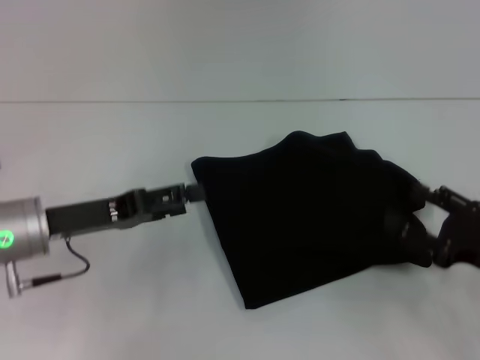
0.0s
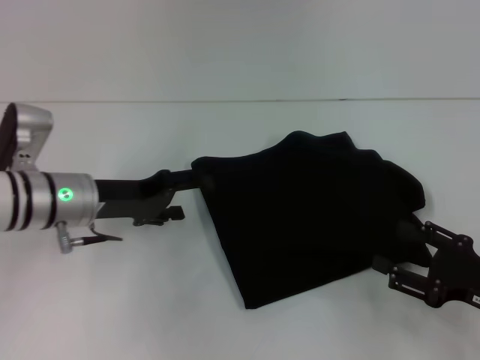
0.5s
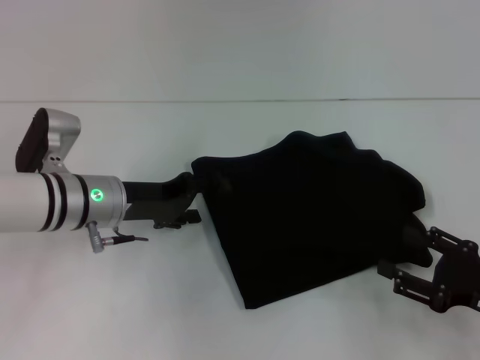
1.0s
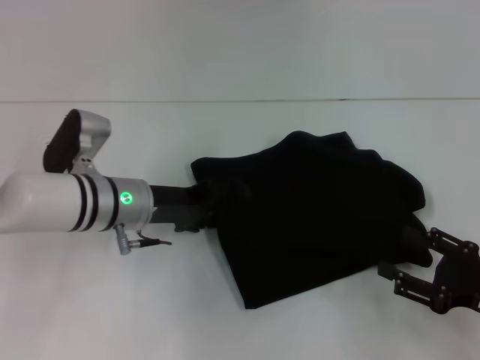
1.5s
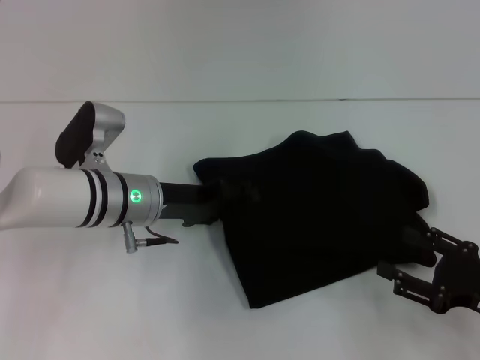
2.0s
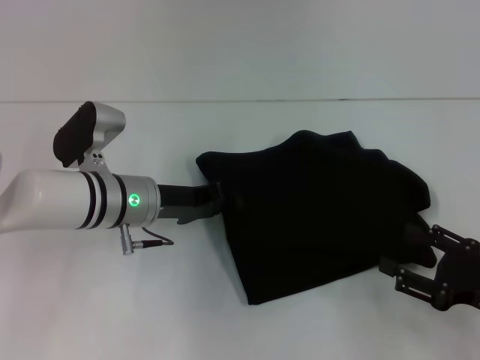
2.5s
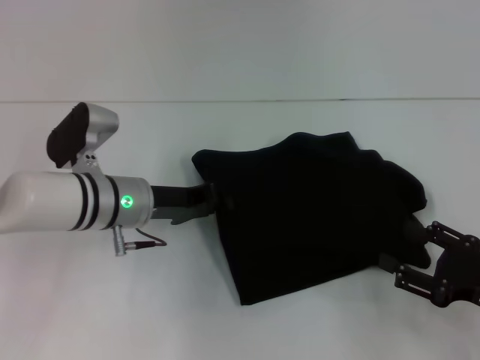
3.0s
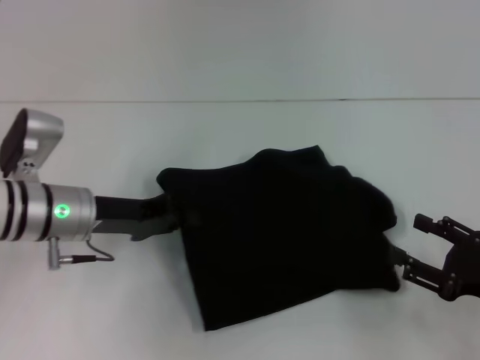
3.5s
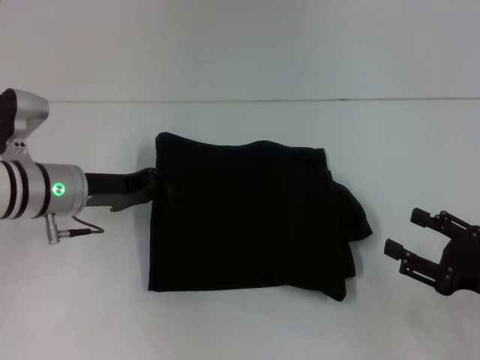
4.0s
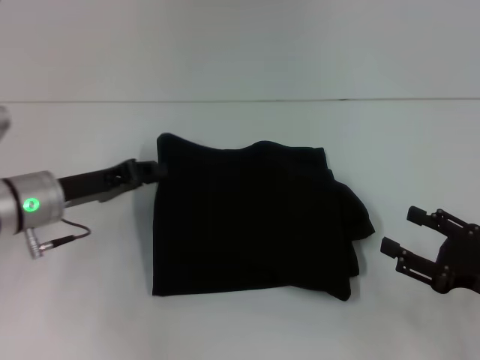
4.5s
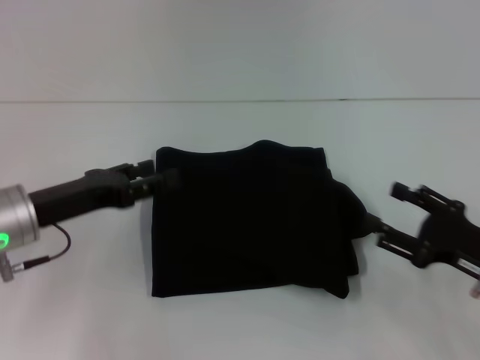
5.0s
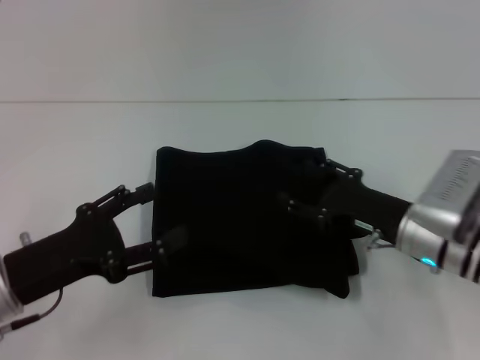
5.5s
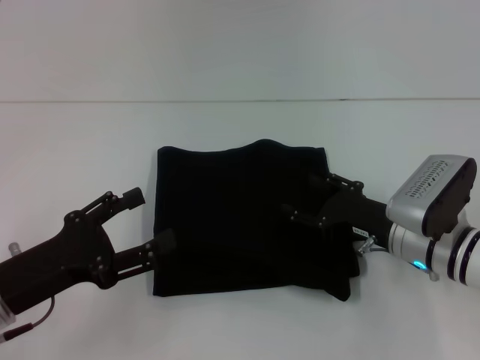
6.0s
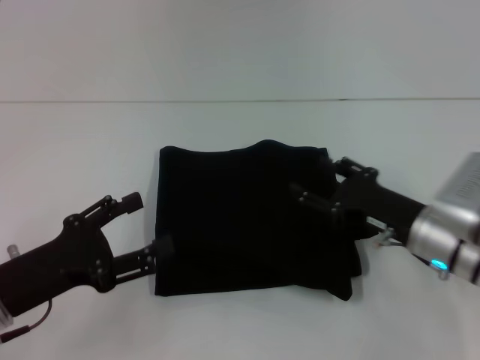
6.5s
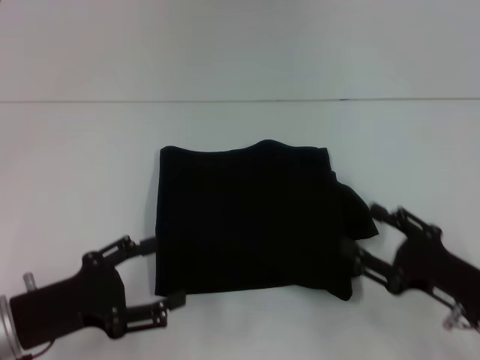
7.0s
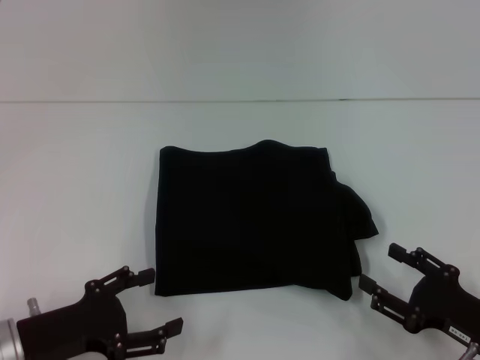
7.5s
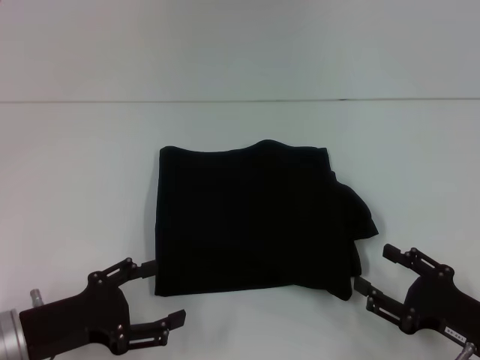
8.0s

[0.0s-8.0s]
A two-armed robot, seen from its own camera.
0.0s to 2.0s: The left gripper shifts roughly 10 cm to the right and forward.
2.0s to 4.0s: The left gripper travels to the left by approximately 10 cm, and closes.
4.0s to 6.0s: The left gripper moves backward, about 15 cm, and opens. Meanwhile the right gripper travels to the left and forward by about 15 cm.
6.0s to 8.0s: The right gripper is displaced backward and to the right by roughly 15 cm.

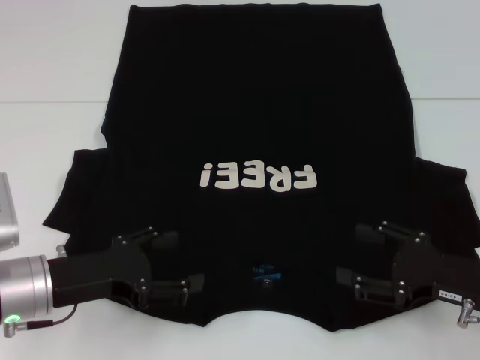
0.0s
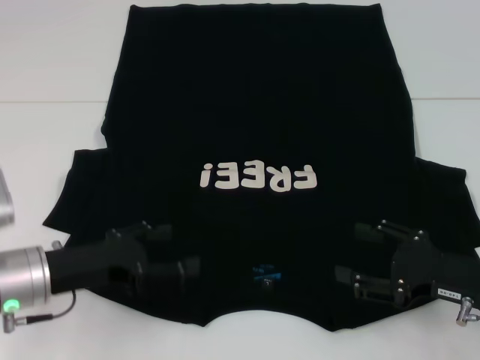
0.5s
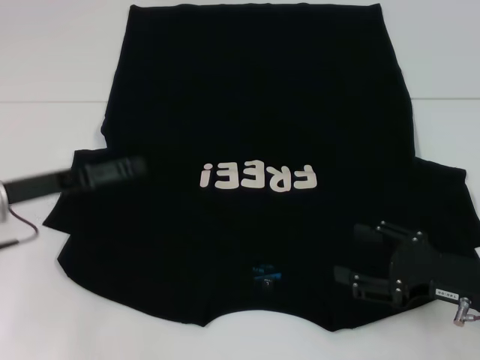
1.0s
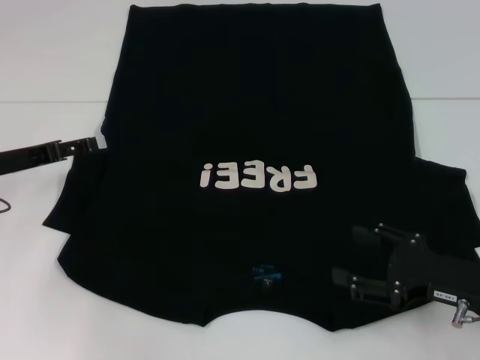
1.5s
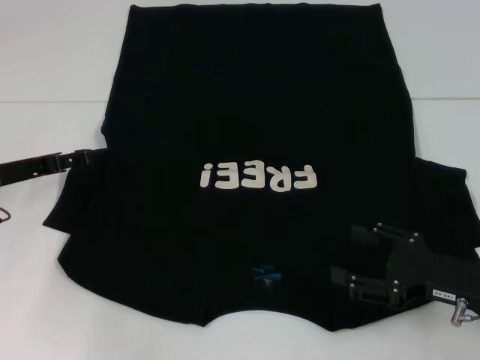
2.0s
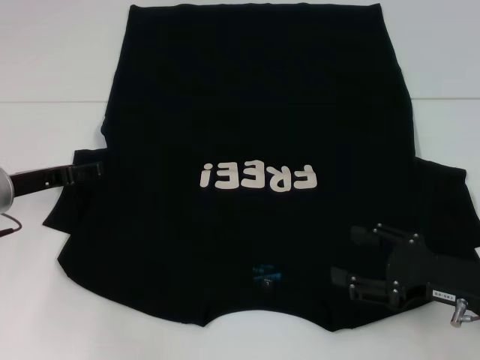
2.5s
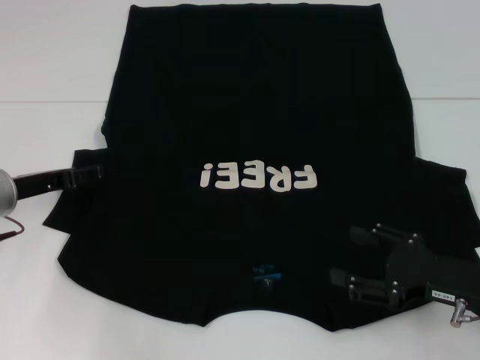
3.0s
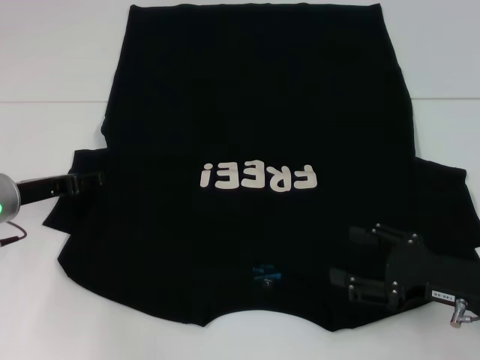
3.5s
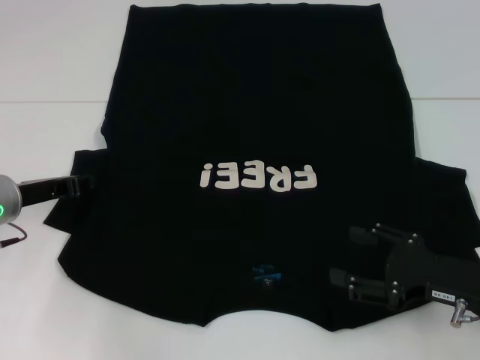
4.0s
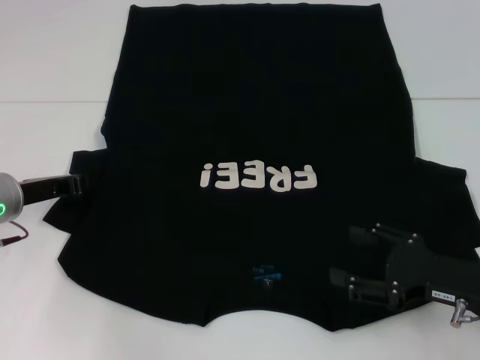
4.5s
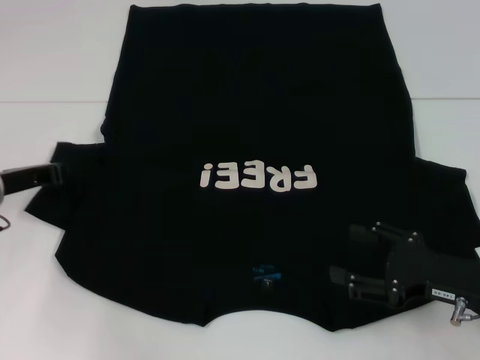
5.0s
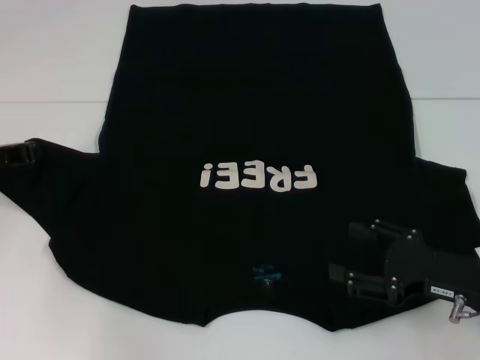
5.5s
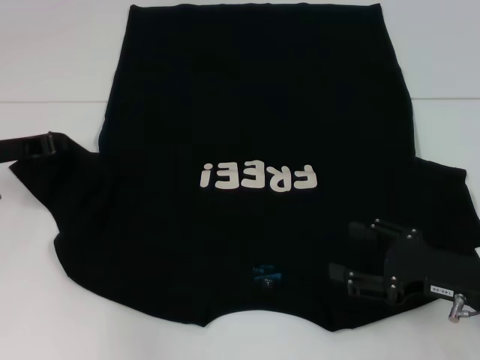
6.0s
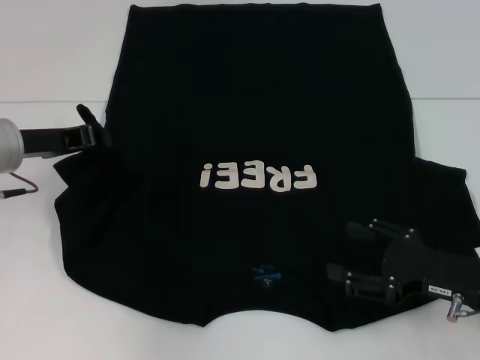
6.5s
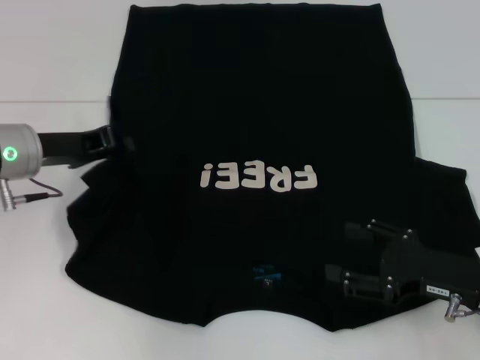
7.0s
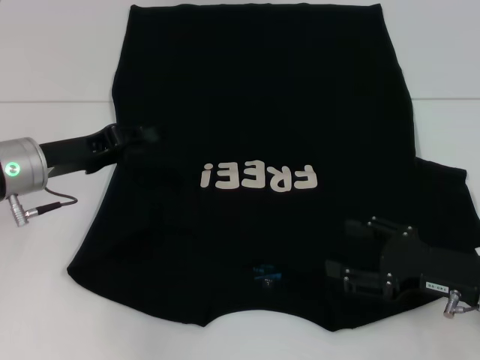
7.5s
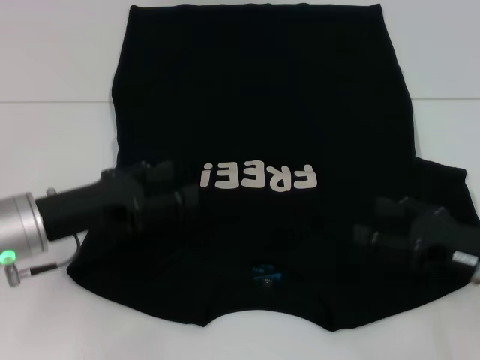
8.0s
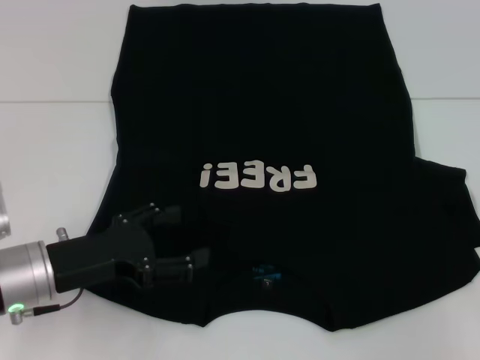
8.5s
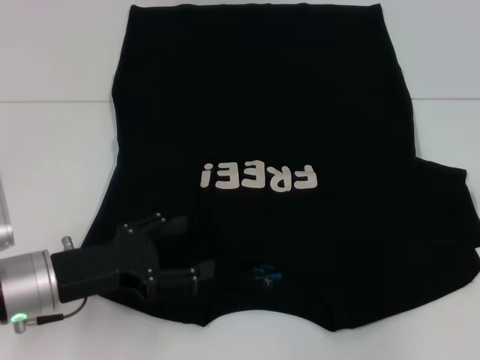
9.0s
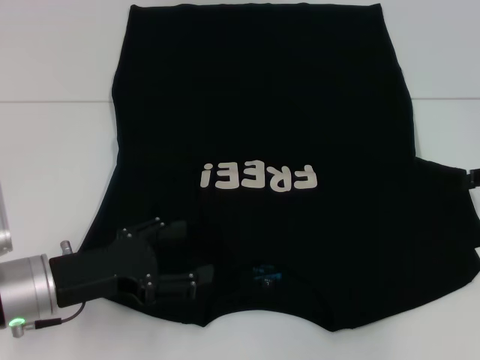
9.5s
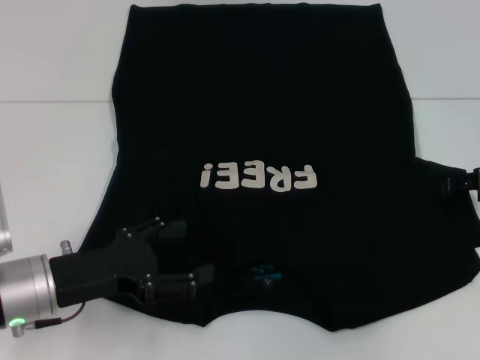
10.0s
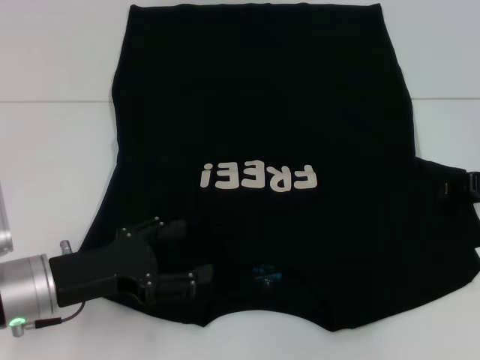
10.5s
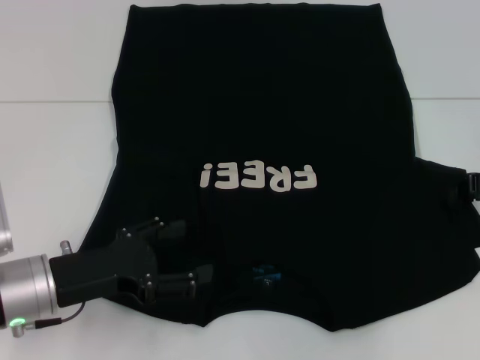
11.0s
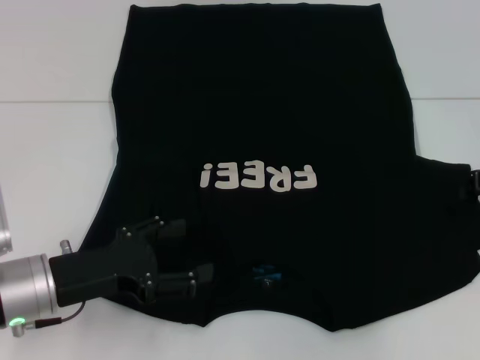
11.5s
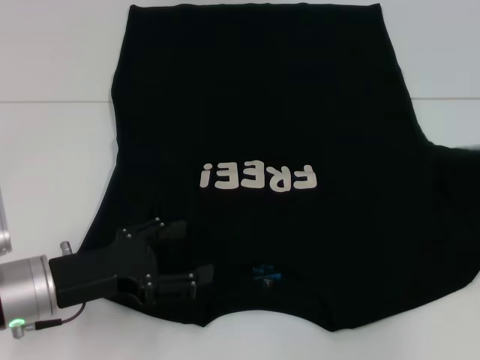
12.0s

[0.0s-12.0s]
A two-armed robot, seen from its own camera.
Step, 0.0s to 7.0s: Fold the bottom left sleeve with your left hand.
0.0s to 2.0s: The left gripper shifts about 10 cm forward and to the left.
2.0s to 4.0s: The left gripper closes.
4.0s to 6.0s: The left gripper goes approximately 5 cm upward, and closes up.
6.0s to 8.0s: The left gripper shifts roughly 10 cm backward and to the right, and opens up.
8.0s to 10.0s: The left gripper opens up. Meanwhile the right gripper moves forward, upward and to the right, roughly 15 cm.
10.0s to 12.0s: The right gripper changes place by about 5 cm, and closes up.

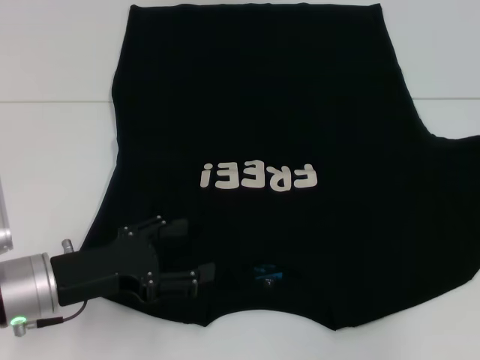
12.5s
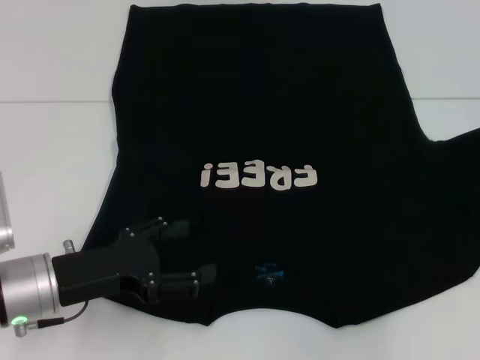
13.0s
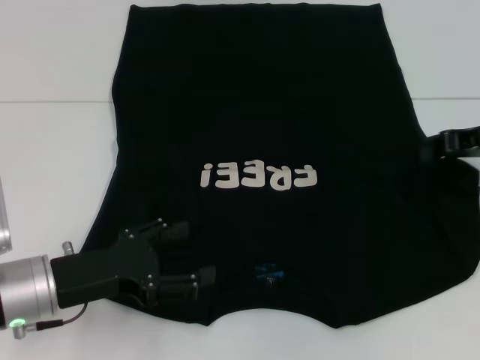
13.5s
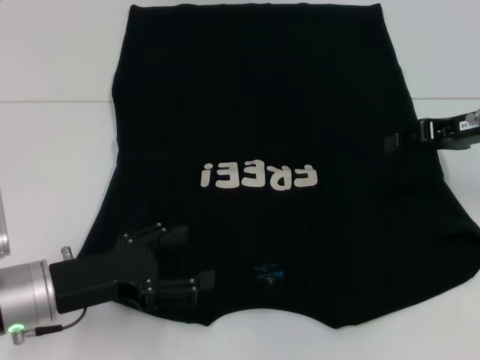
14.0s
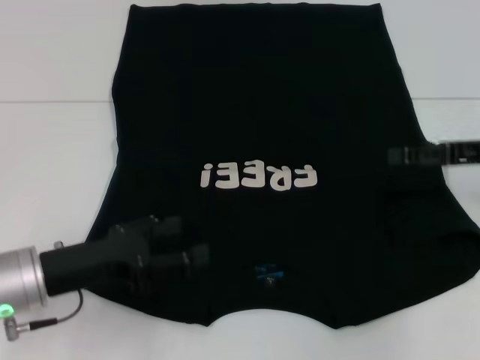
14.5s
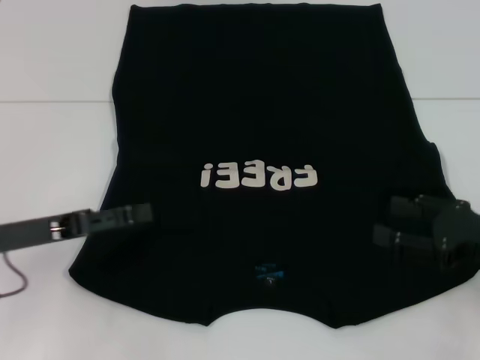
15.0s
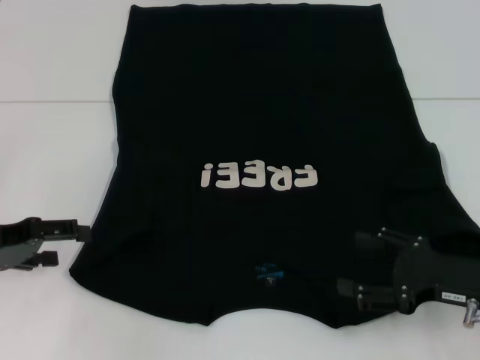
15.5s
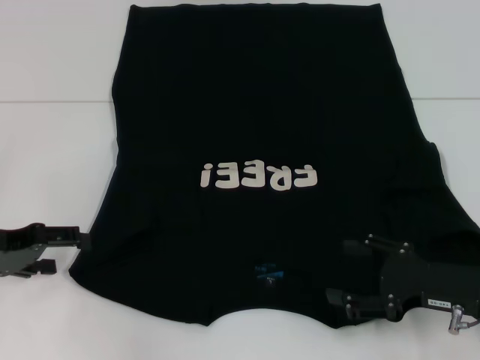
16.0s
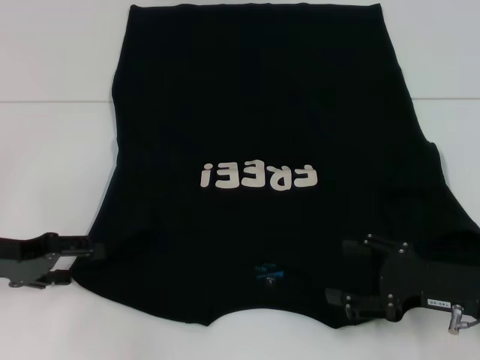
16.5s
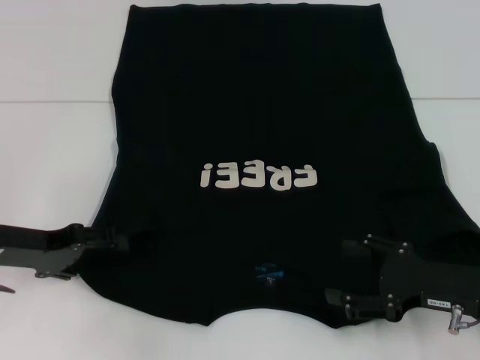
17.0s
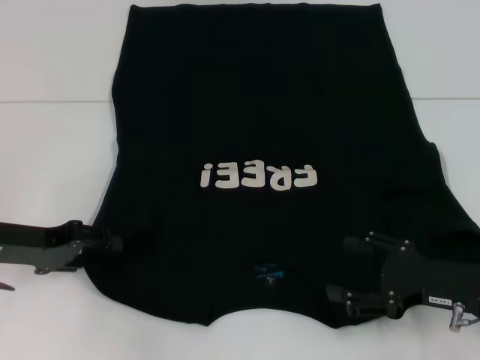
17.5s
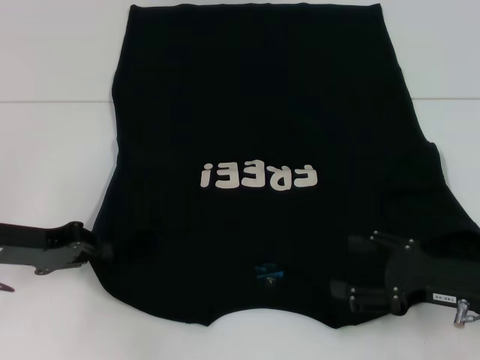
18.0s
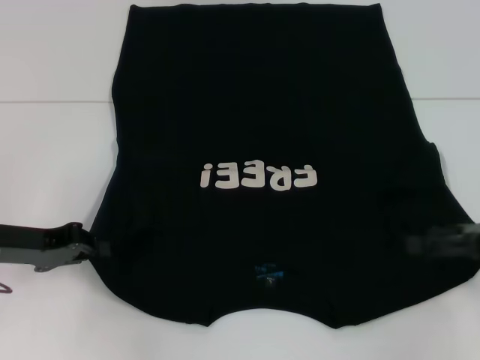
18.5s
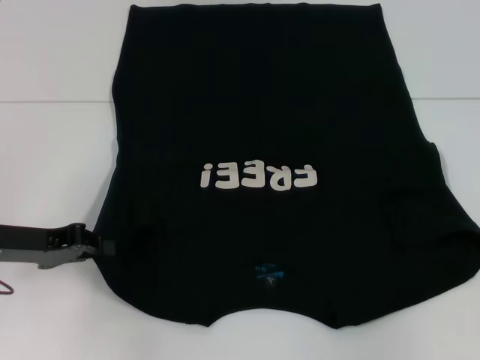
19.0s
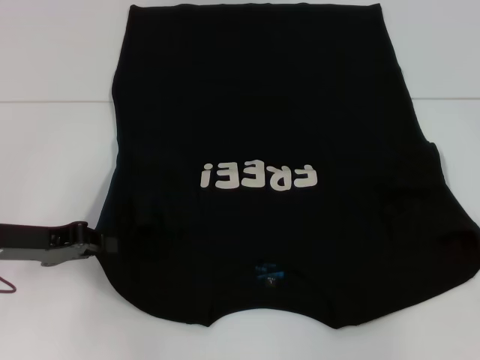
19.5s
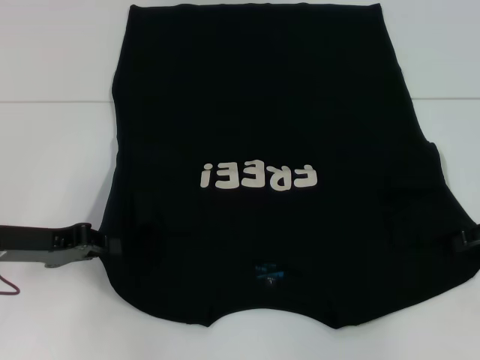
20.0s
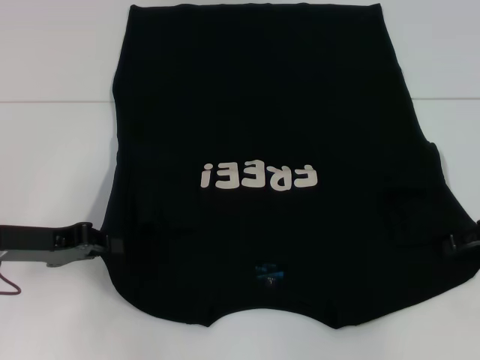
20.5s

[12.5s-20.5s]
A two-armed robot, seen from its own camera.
Step, 12.5s to 15.0s: Fold the bottom right sleeve with your right hand.
12.5s to 14.5s: The right gripper travels to the left by approximately 10 cm, and opens.
14.5s to 16.5s: The right gripper heads downward and backward, covering approximately 15 cm, and opens up; the left gripper shifts approximately 10 cm to the left.
16.5s to 18.5s: The left gripper closes. Meanwhile the right gripper goes some 10 cm to the right and upward.
